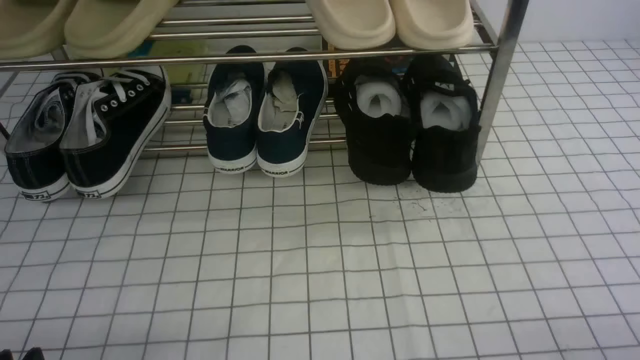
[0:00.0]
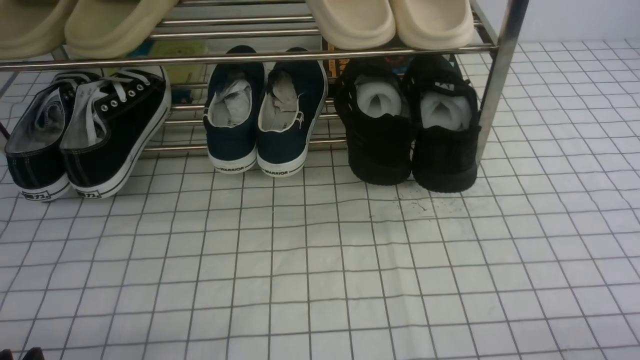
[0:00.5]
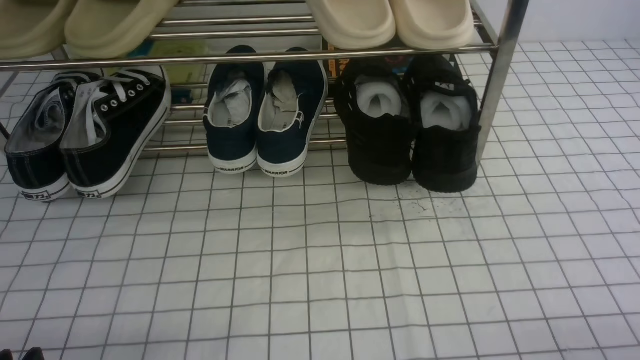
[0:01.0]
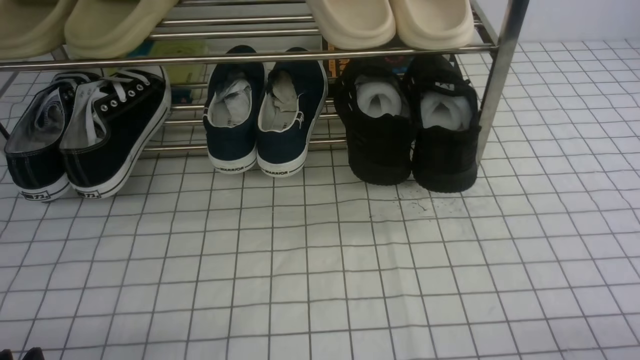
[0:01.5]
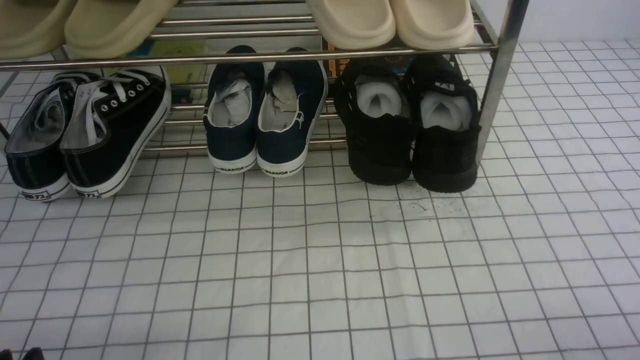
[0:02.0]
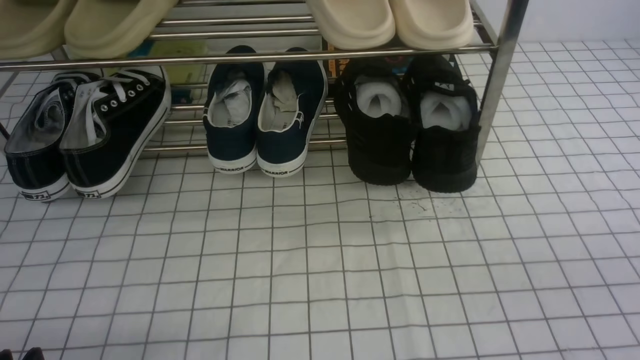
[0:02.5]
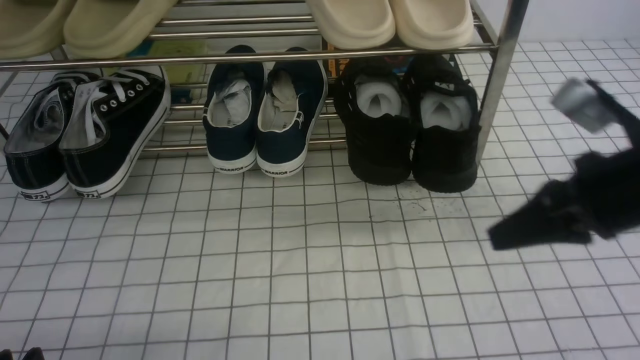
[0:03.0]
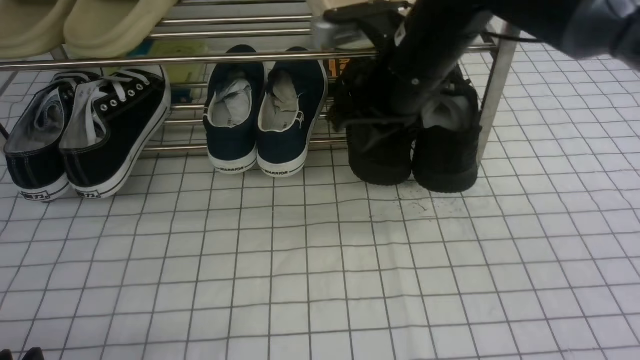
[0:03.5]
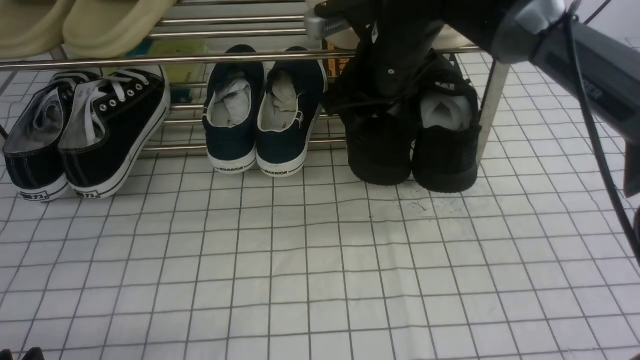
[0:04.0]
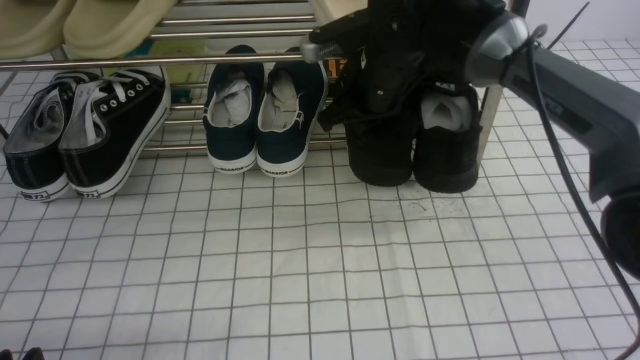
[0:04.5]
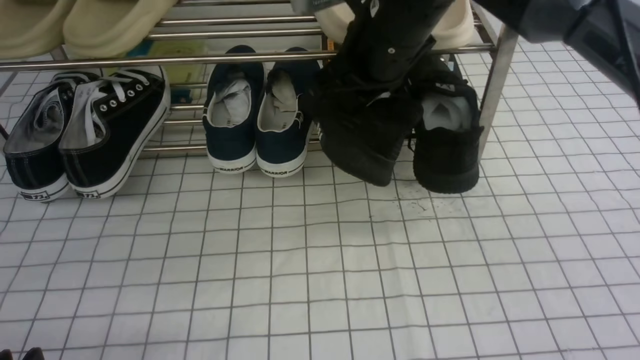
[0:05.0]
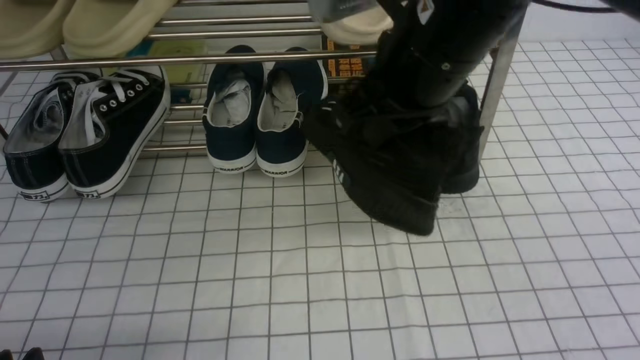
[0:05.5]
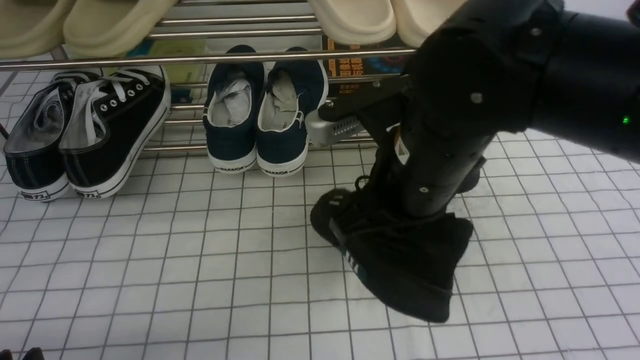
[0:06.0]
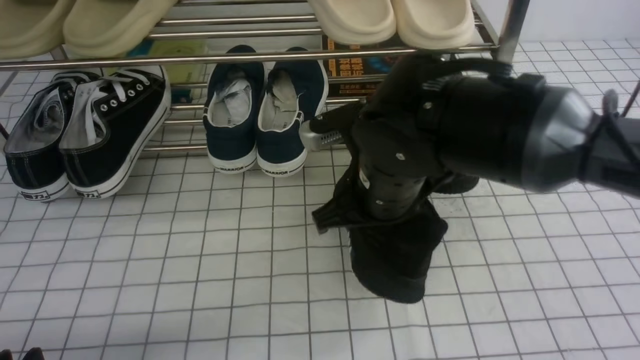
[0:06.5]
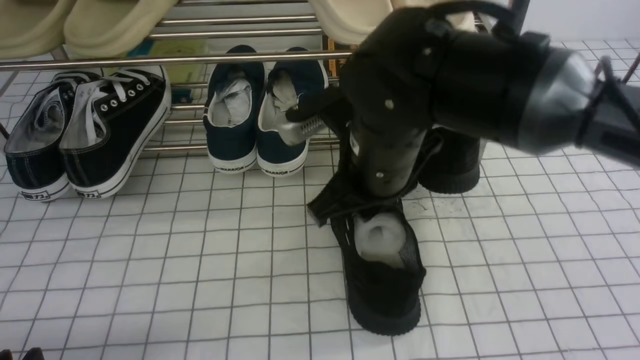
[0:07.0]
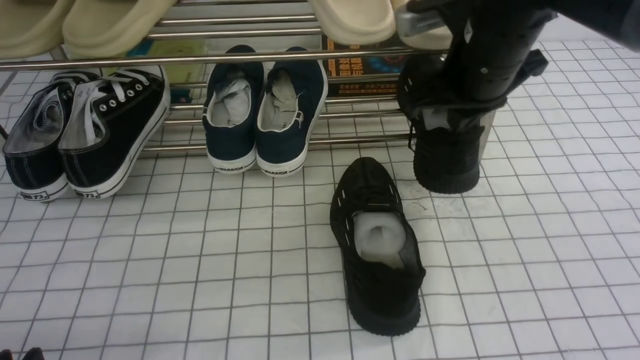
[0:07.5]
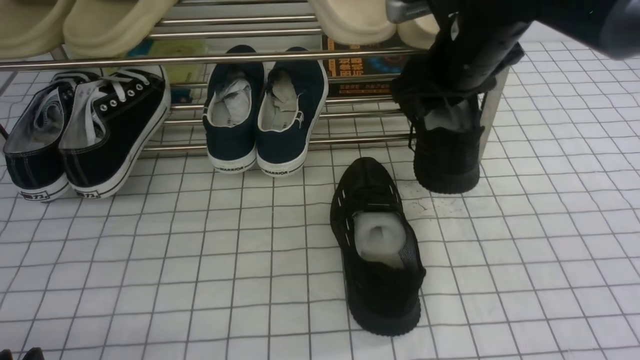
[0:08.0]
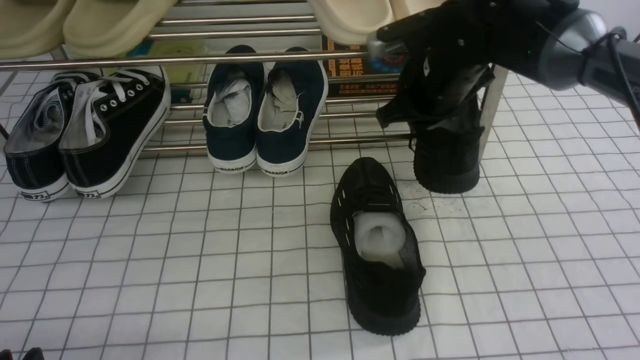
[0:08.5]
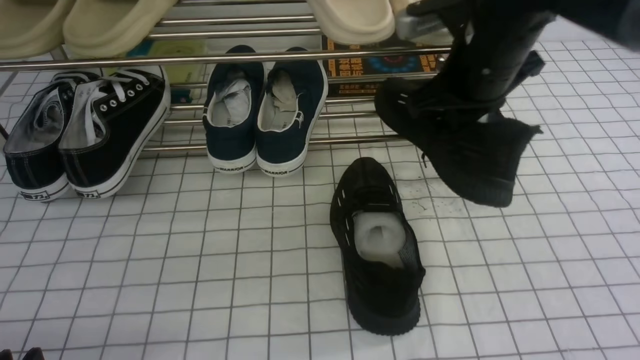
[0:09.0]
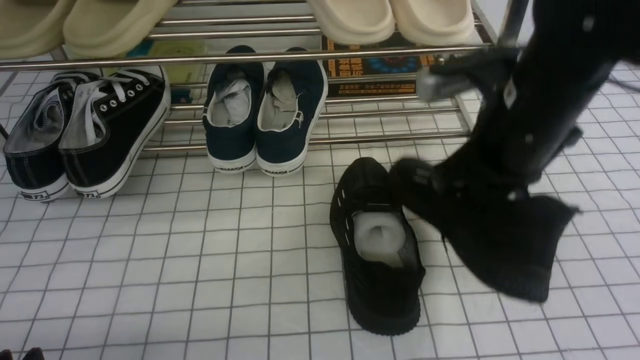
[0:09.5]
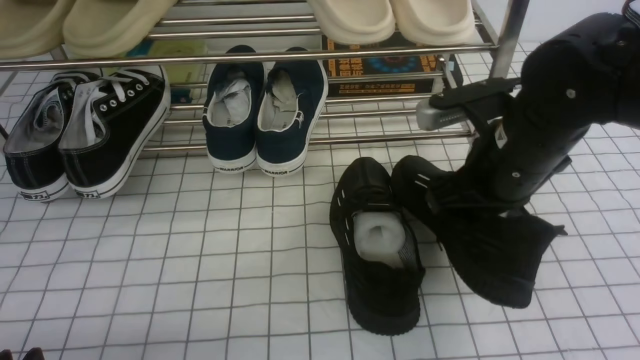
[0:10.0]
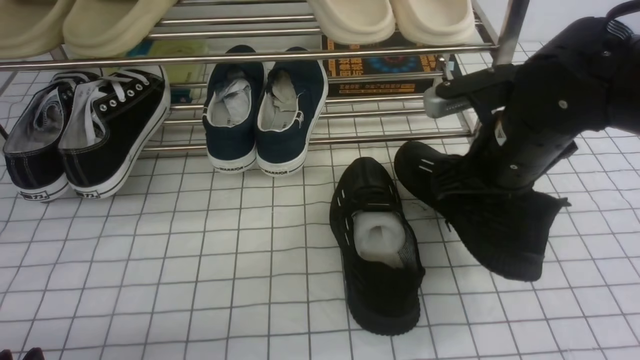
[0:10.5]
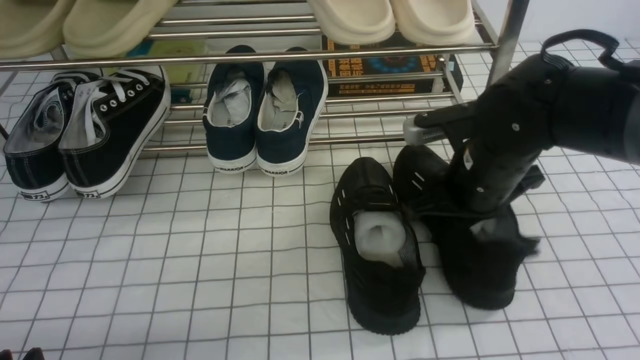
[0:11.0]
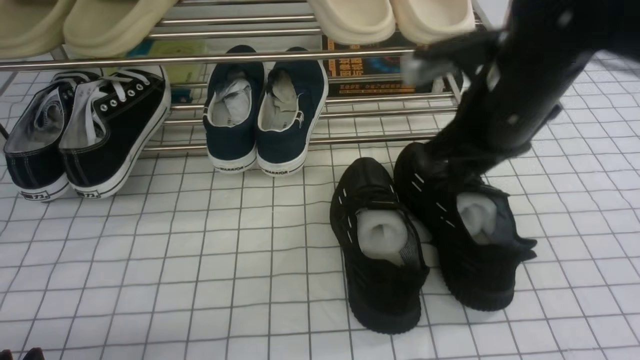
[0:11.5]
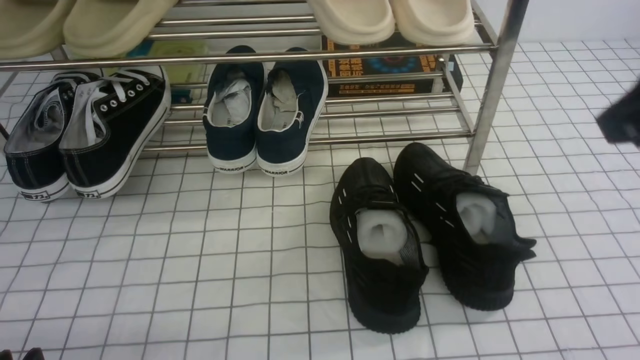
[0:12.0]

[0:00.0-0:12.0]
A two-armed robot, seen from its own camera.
Step, 0:00.0 to 0:04.0: use the right arm to clamp a shoe on the right side of the shoe rack.
Step, 0:05.0 to 0:07.0: use the right arm to take out the clamped shoe from the shoe rack and put it down.
Step, 0:07.5 to 0:08.5: use the right arm to clamp a shoe on the right side of the shoe rack.
Step, 0:09.0 to 0:11.5: use the right arm to take out the clamped shoe from the shoe rack and put it down.
0:02.0 to 0:04.0: The right gripper heads forward and to the left, covering about 40 cm, and closes, then opens again.
0:04.0 to 0:06.0: The right gripper heads backward, covering roughly 15 cm, and closes up.
0:06.0 to 0:08.0: The right gripper shifts approximately 15 cm forward and to the right, and opens.
0:08.0 to 0:10.0: The right gripper moves backward, some 10 cm, and closes its fingers.
0:10.0 to 0:12.0: The right gripper shifts approximately 20 cm upward, backward and to the right, and opens, then closes once more.

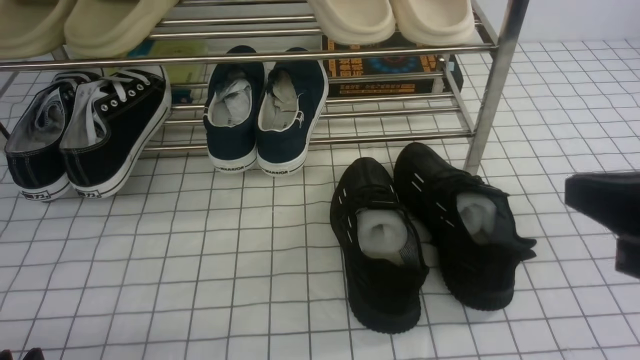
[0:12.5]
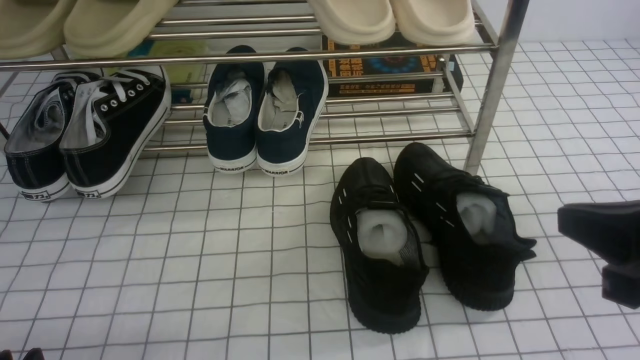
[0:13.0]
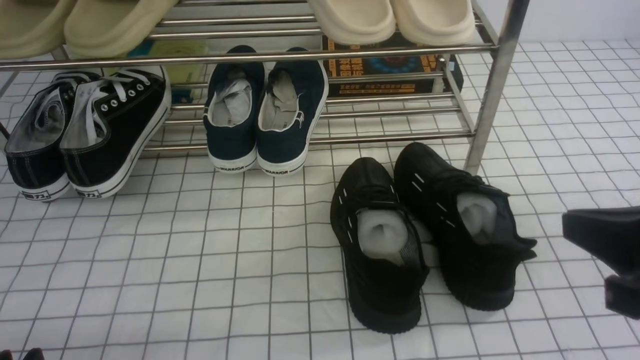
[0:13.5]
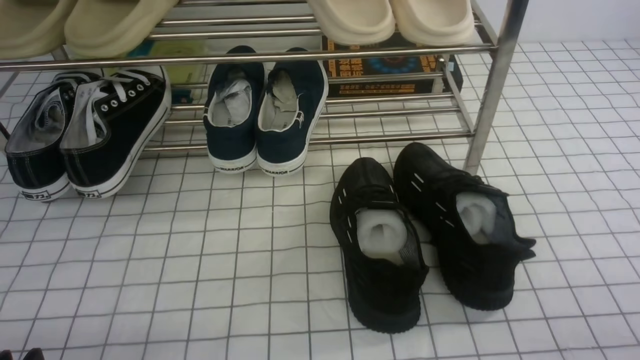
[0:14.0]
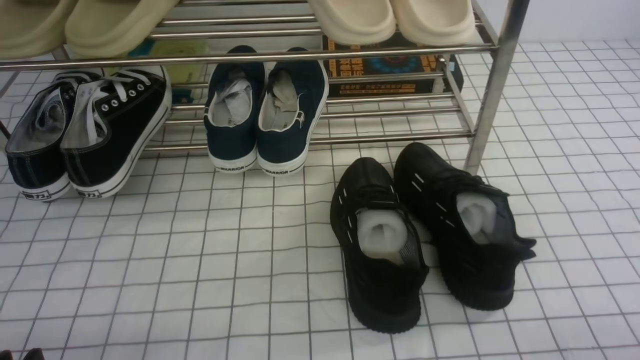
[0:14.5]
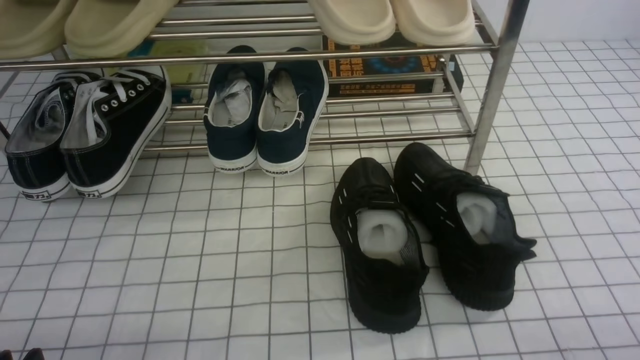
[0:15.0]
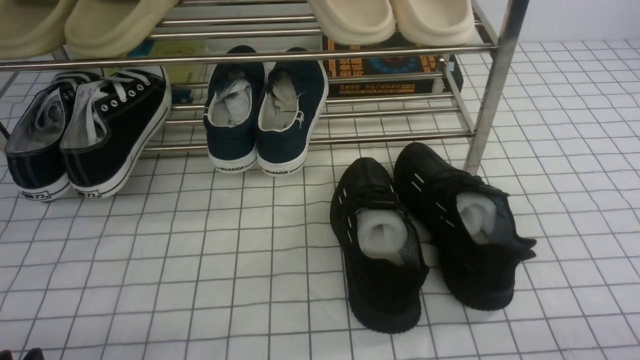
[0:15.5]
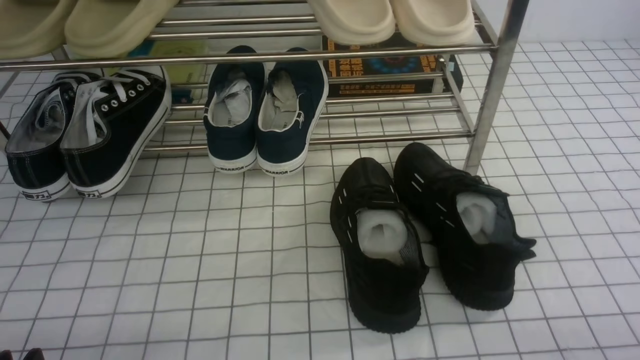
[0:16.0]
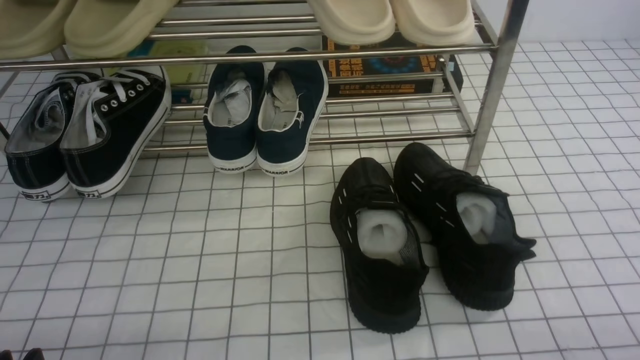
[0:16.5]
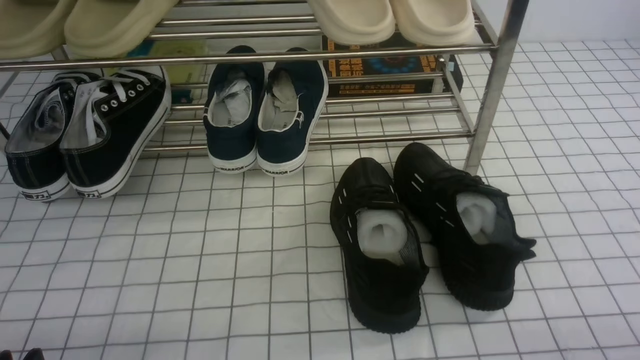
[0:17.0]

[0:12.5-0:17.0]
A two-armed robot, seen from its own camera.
0:12.5 to 0:14.5: The right gripper goes approximately 20 cm downward, to the right and backward.
